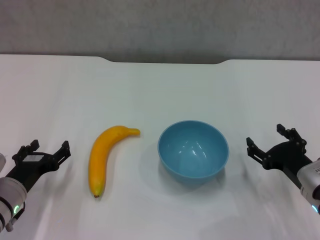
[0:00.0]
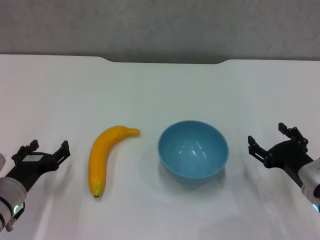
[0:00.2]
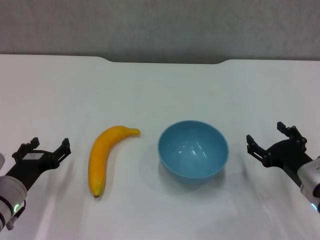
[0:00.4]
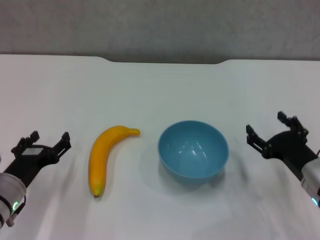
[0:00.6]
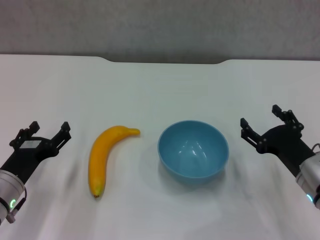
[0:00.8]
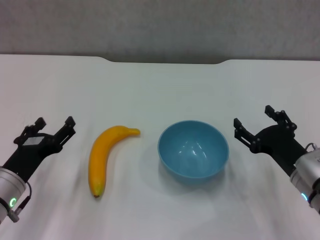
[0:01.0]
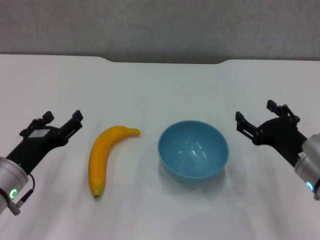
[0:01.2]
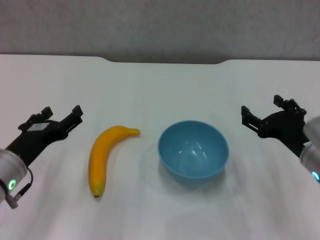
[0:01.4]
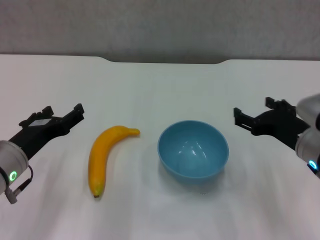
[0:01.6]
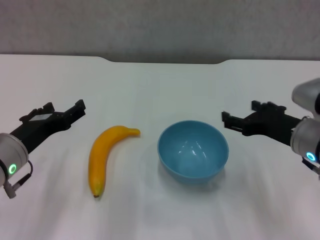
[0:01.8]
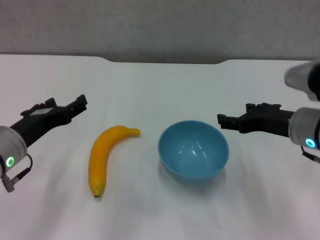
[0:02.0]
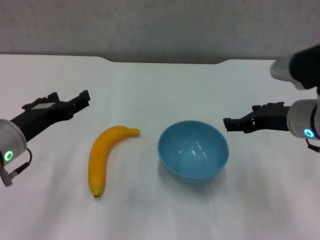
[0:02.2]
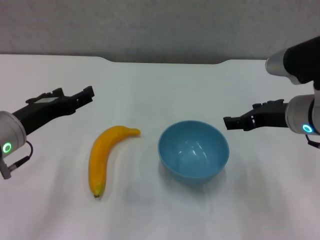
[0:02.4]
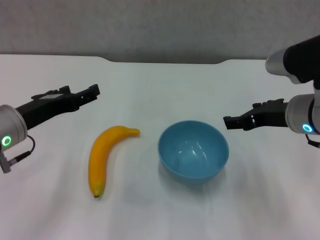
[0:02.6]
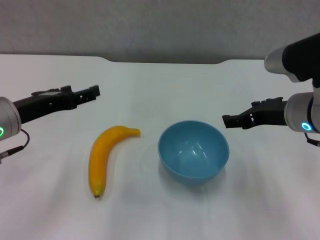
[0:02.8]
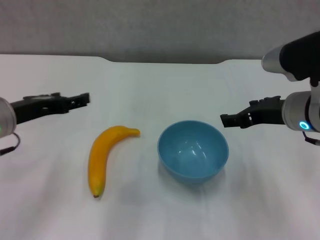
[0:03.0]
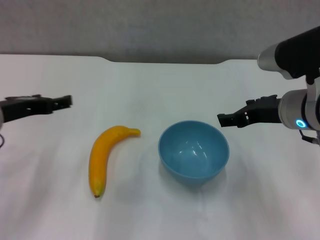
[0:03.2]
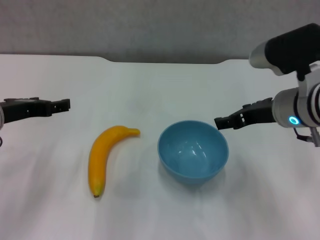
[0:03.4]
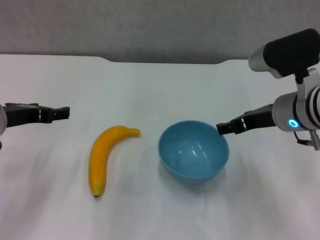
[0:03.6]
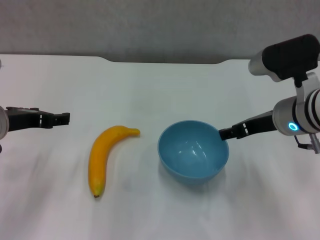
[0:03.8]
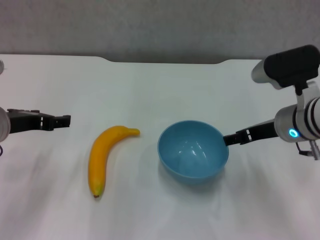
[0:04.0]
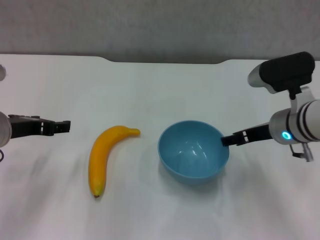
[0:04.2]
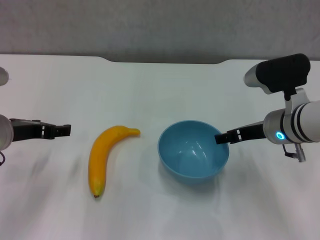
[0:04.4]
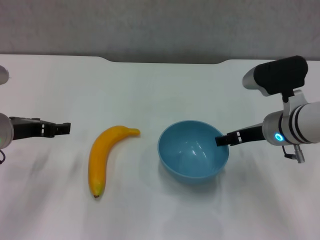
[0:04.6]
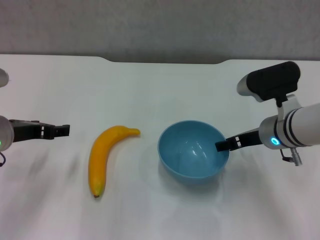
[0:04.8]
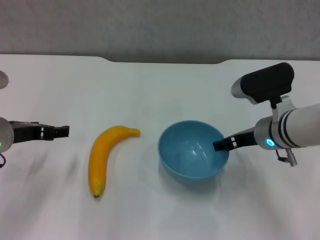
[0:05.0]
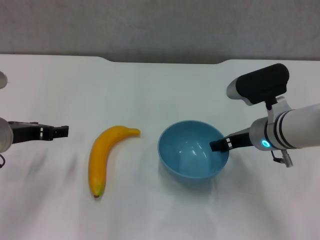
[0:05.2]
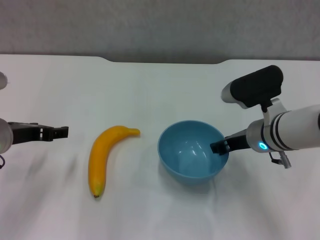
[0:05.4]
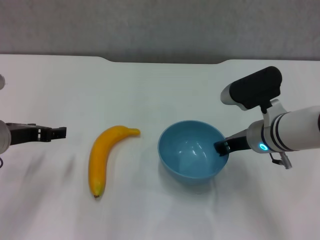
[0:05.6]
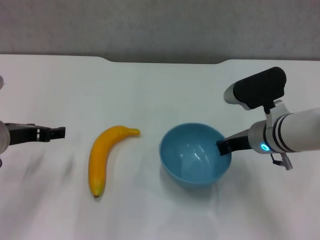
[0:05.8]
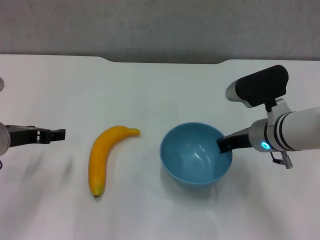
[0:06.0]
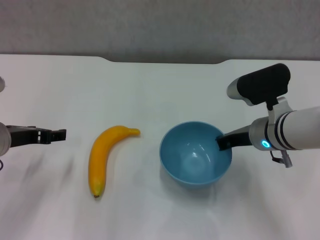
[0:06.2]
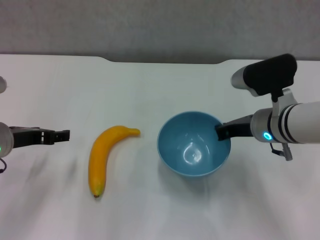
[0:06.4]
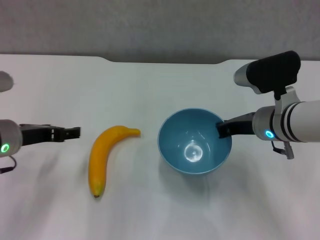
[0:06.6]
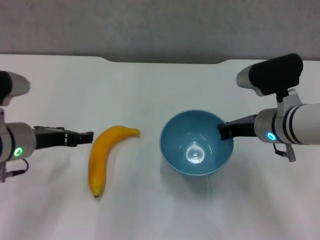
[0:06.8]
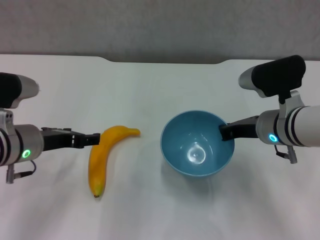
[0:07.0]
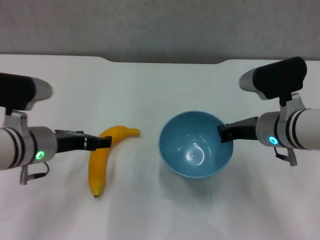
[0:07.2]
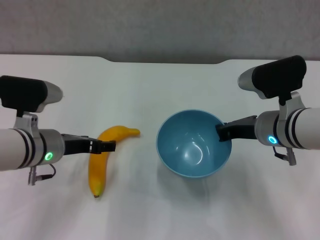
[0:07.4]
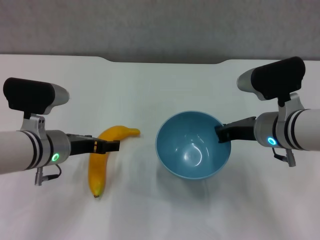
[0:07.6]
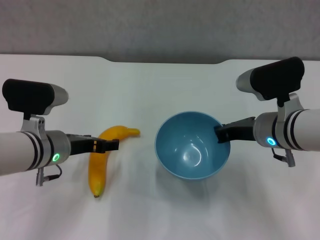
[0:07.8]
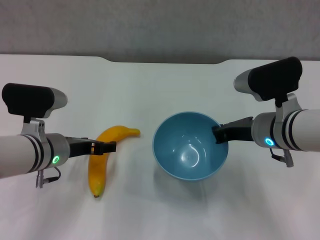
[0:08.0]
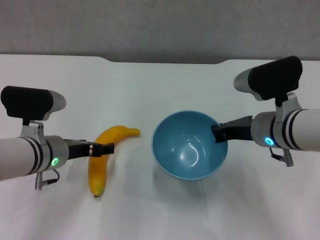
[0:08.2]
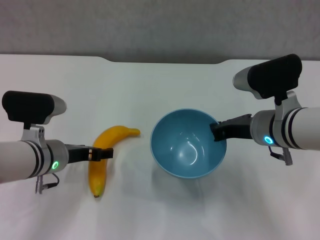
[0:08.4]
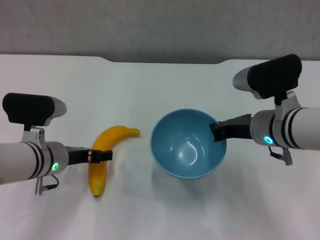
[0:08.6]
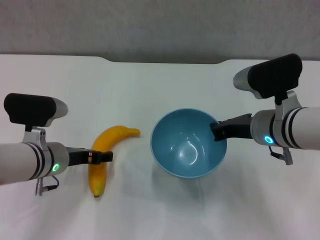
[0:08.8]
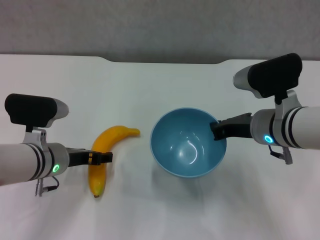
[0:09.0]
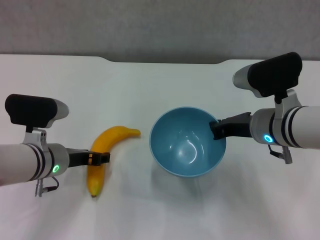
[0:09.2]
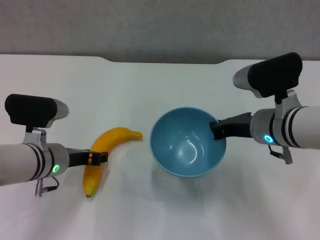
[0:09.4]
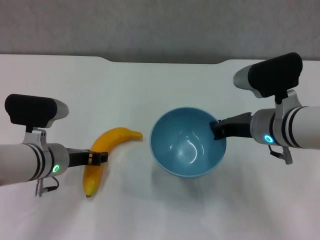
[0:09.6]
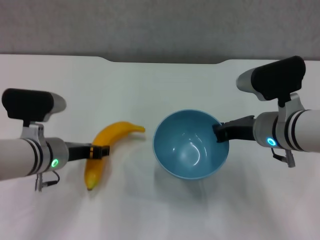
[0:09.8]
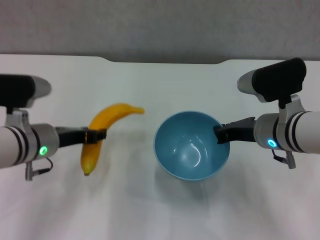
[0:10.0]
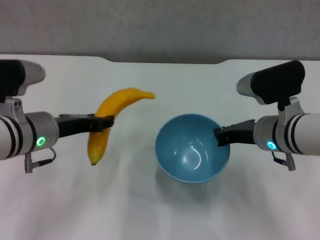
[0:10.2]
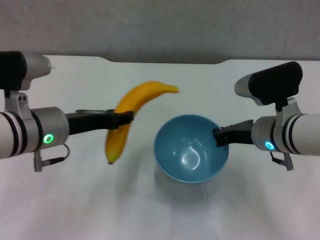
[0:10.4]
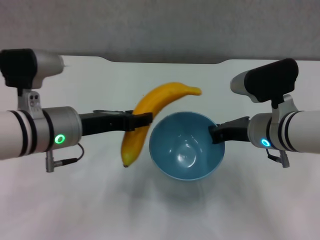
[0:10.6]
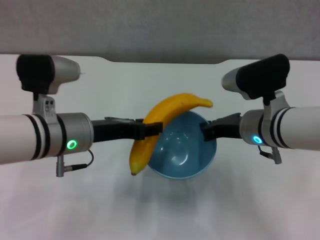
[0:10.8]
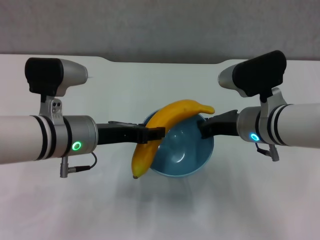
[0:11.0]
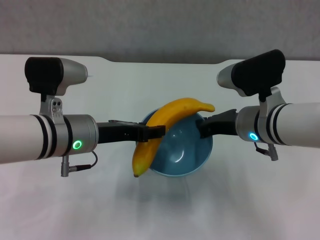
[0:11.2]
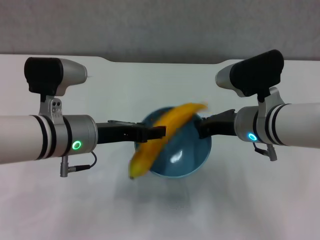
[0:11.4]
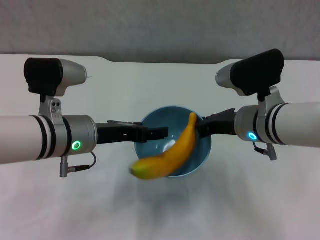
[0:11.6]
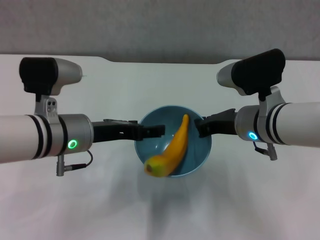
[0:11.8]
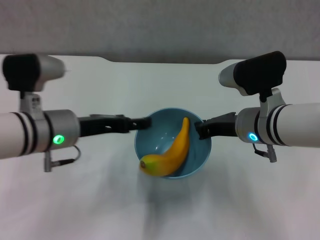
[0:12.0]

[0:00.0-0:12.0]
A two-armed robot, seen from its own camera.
Step, 0:00.0 to 0:06.0: Grasp the blue bowl with right gripper.
Step, 0:06.2 to 0:07.2: Lift the blue bowl with right gripper.
Step, 0:07.6 to 0:09.6: Grasp the banana with left gripper.
Step, 0:09.8 to 0:11.8: Place the banana in the blue bowl with left gripper.
0:00.0 to 0:01.6: The grippers both shift upward by about 10 cm.
0:01.6 to 0:03.0: Both grippers travel together upward, some 5 cm.
0:03.0 to 0:04.4: The right gripper goes about 5 cm downward.
0:04.4 to 0:06.0: The right gripper closes up.
0:06.0 to 0:07.6: The left gripper travels to the right by approximately 10 cm.
0:07.6 to 0:09.0: The grippers make only small movements.
0:09.0 to 0:10.4: The left gripper moves upward, approximately 10 cm, and closes up.
0:10.4 to 0:12.0: The left gripper opens.

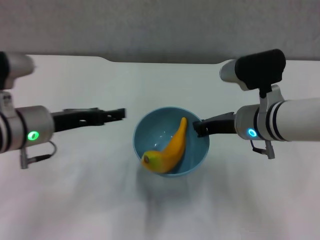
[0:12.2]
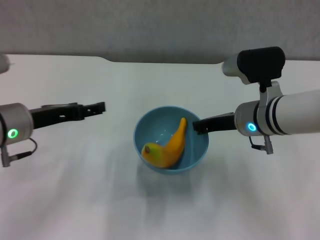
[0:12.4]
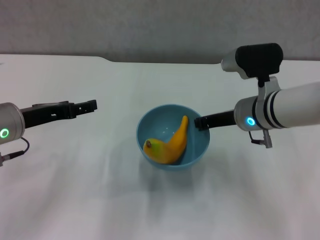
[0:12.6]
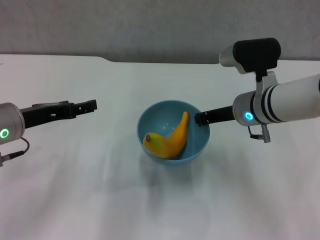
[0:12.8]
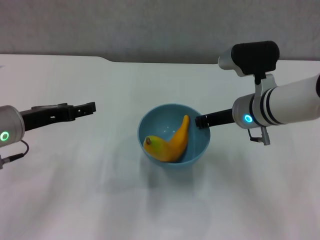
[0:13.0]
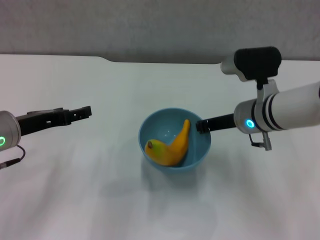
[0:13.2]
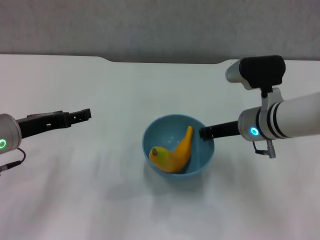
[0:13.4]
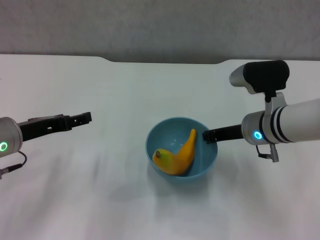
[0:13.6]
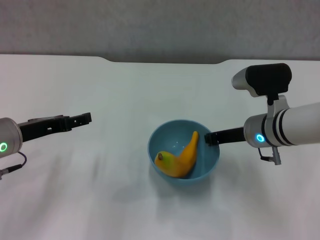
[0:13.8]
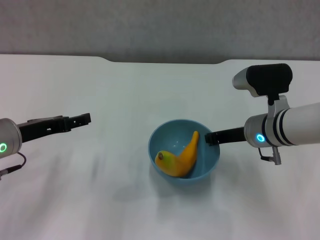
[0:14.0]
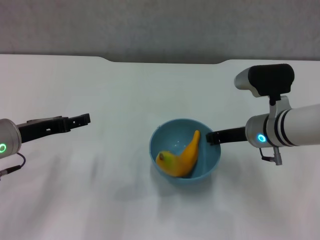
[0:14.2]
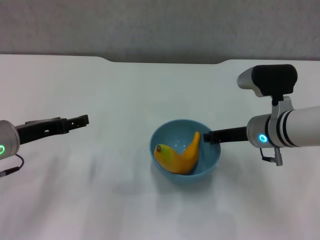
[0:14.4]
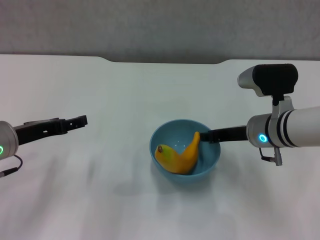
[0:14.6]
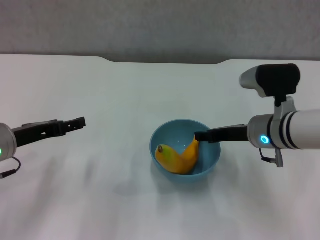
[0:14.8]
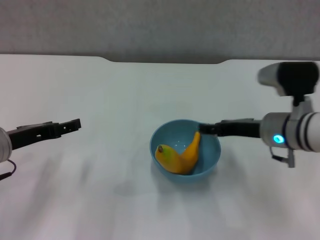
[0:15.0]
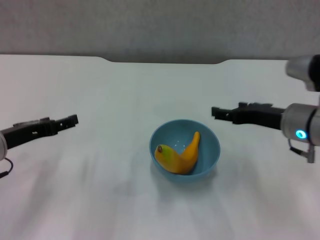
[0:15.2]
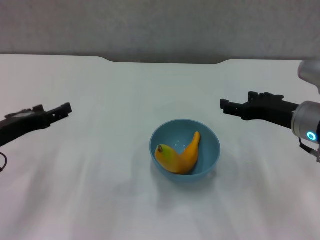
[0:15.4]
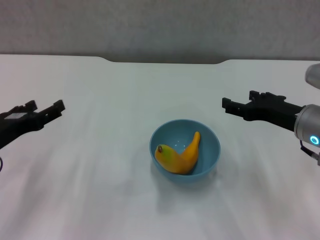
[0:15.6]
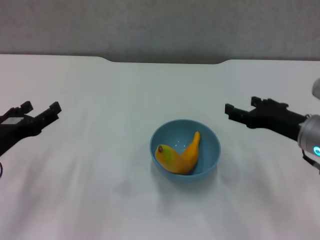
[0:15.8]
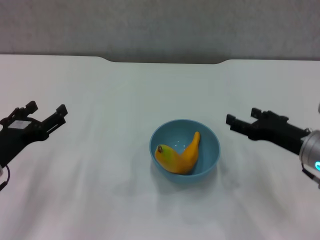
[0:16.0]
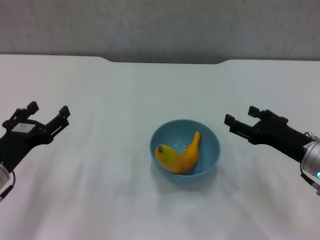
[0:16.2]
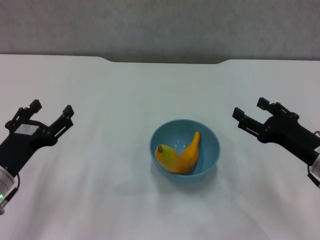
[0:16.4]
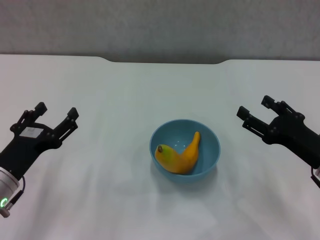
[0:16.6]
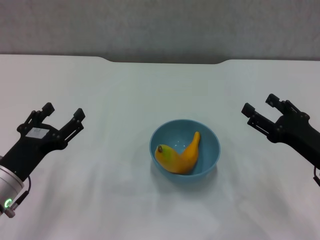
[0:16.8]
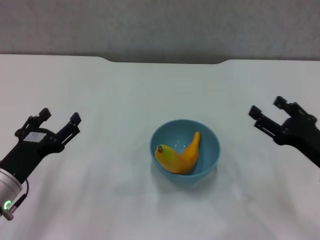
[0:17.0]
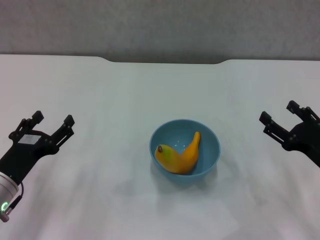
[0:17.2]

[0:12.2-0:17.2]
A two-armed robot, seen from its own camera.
Step, 0:12.2 to 0:15.0: Place the bowl on the table with right gripper.
0:12.2 to 0:13.8: The left gripper changes place by about 5 cm.
0:13.8 to 0:15.6: The right gripper moves to the right and backward, some 10 cm, and opens.
0:15.6 to 0:17.2: The right gripper moves downward, to the right and backward, approximately 10 cm; the left gripper travels downward by about 5 cm.

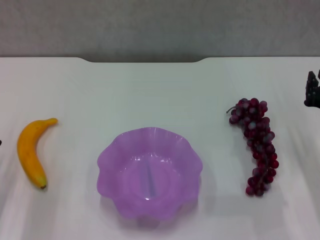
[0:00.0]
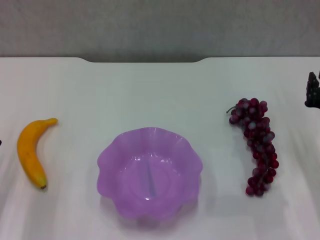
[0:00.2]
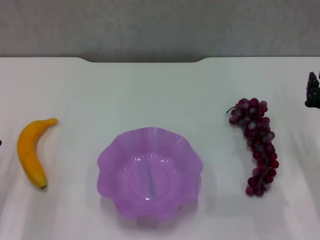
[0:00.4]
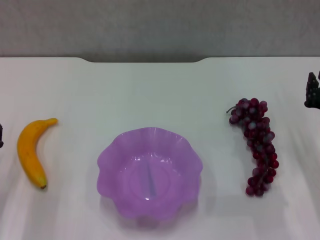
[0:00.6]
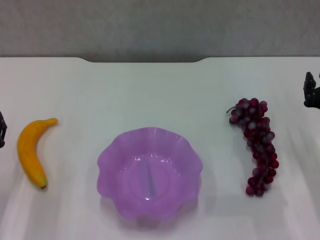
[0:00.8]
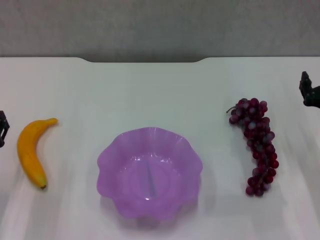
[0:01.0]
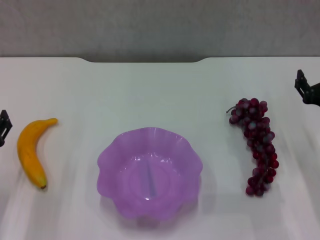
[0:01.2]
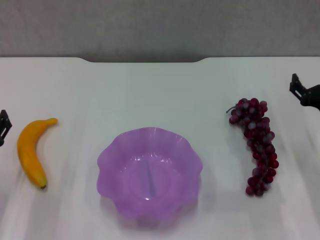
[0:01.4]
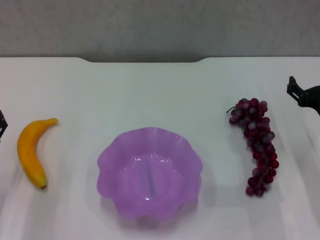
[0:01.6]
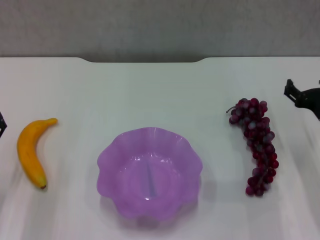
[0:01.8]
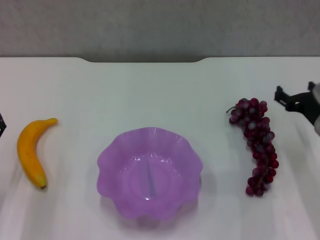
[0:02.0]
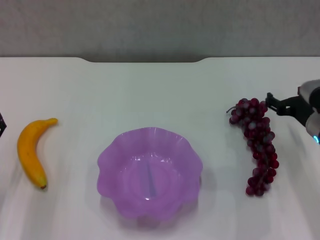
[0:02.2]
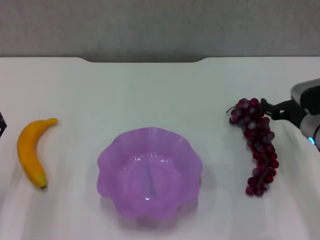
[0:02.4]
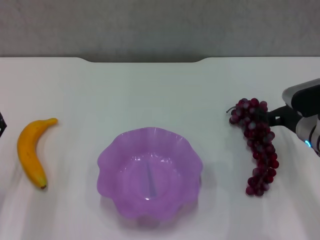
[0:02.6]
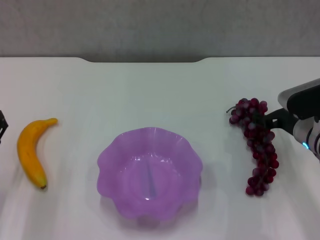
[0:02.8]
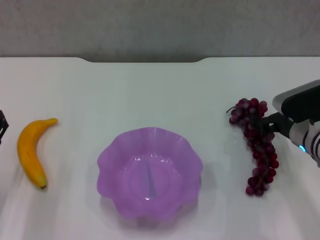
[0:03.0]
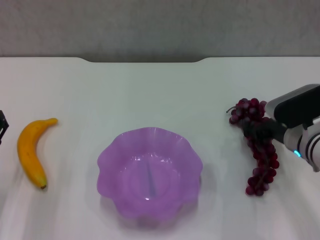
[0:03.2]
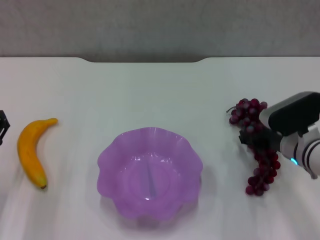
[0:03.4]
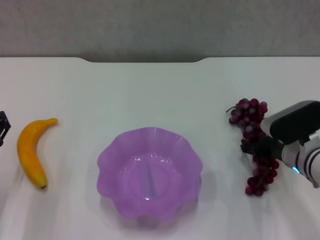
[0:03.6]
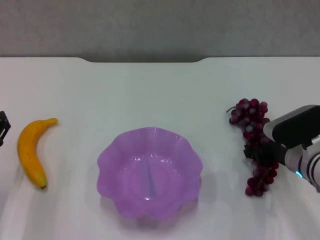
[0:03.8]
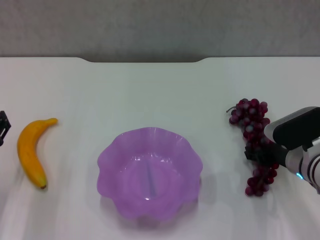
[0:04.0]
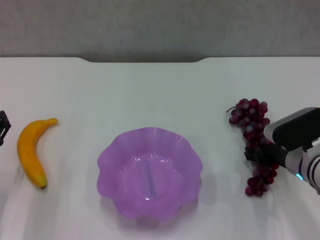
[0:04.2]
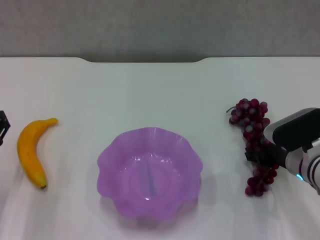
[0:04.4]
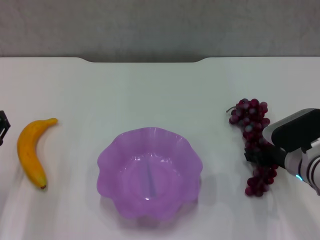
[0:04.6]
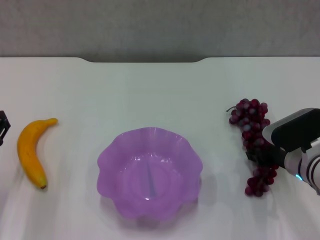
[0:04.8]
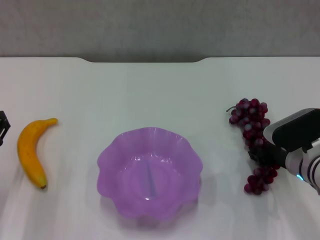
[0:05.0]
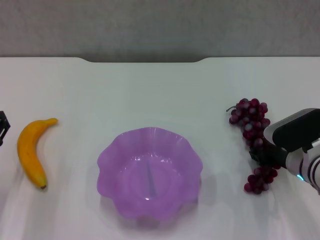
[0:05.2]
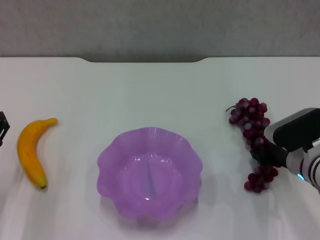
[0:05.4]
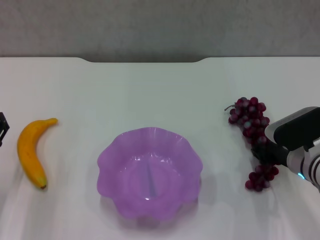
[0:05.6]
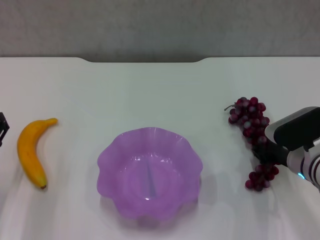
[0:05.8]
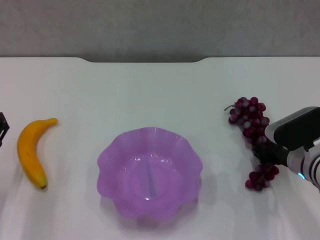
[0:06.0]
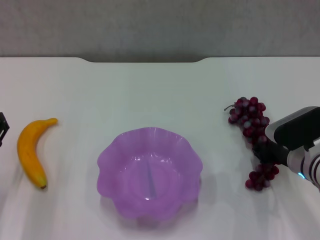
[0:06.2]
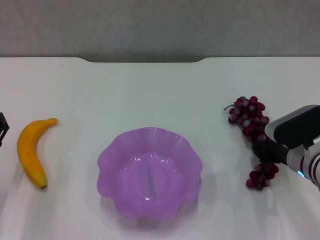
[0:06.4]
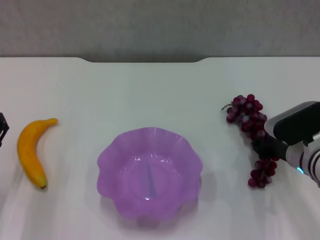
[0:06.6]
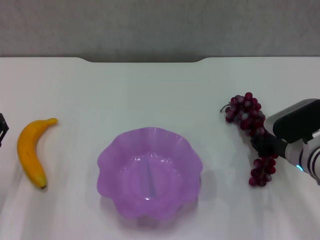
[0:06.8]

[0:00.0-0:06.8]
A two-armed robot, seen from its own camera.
0:00.0 to 0:01.4: The right gripper opens.
0:01.4 to 0:02.8: The right gripper ends up approximately 5 cm from where it was.
0:02.8 to 0:04.0: The grippers make only small movements.
0:04.0 to 0:06.8: Both grippers stay put.
